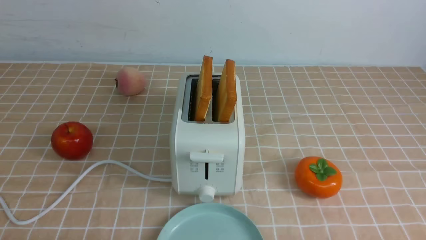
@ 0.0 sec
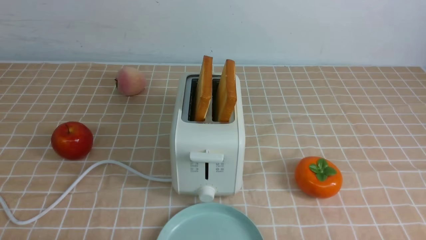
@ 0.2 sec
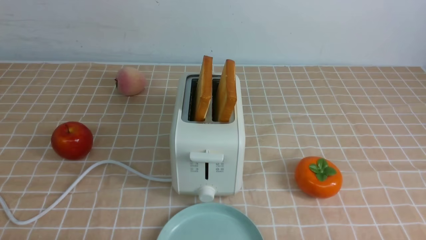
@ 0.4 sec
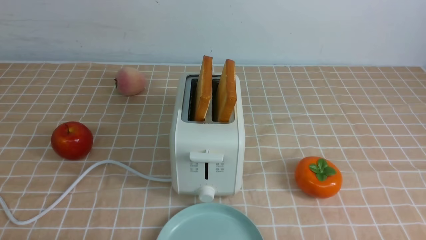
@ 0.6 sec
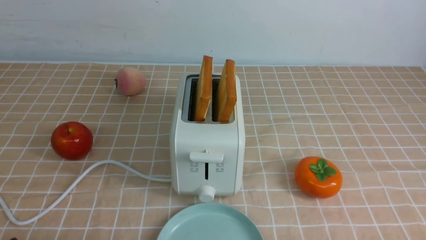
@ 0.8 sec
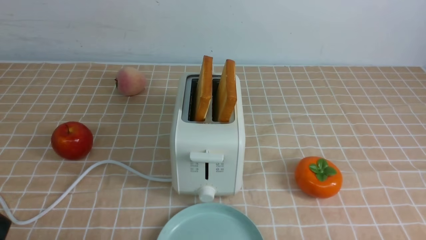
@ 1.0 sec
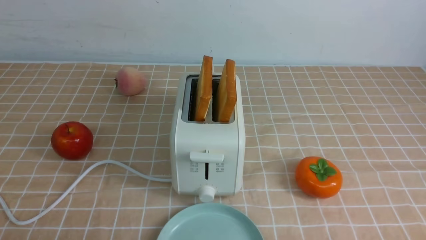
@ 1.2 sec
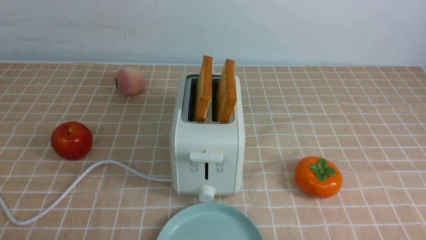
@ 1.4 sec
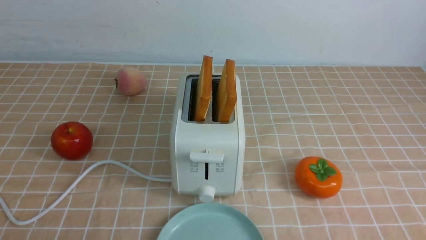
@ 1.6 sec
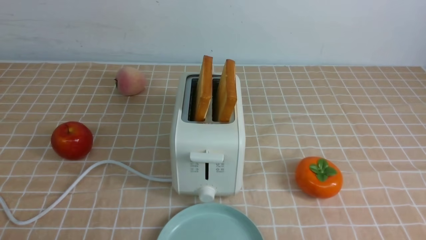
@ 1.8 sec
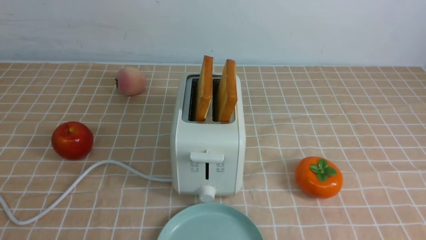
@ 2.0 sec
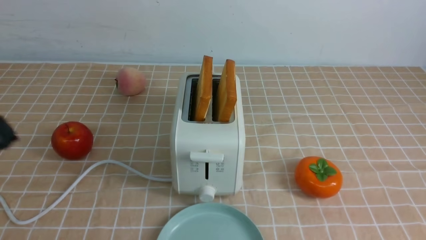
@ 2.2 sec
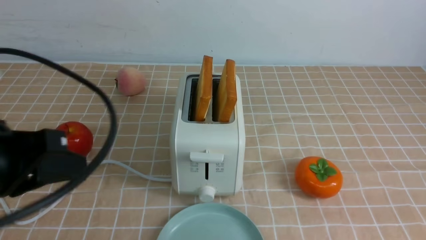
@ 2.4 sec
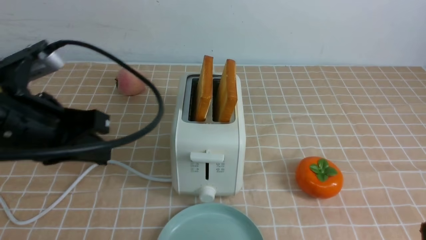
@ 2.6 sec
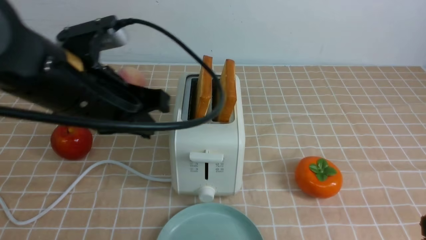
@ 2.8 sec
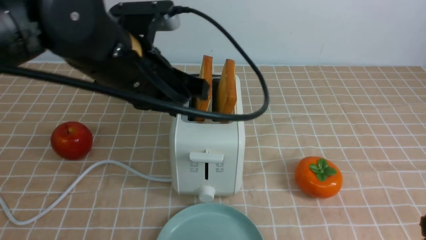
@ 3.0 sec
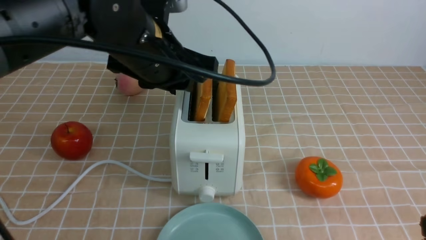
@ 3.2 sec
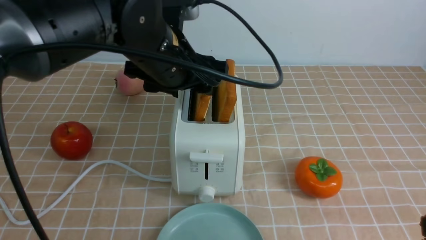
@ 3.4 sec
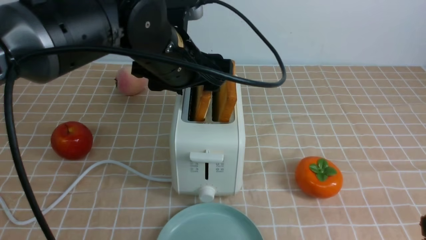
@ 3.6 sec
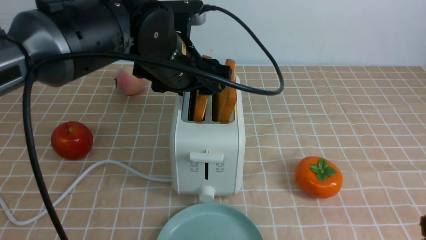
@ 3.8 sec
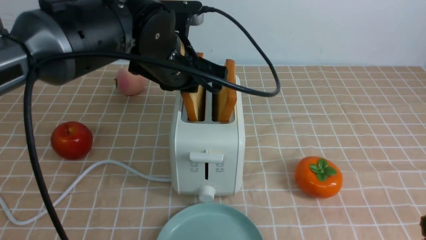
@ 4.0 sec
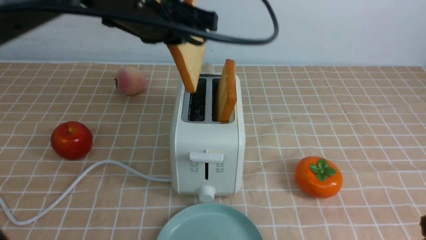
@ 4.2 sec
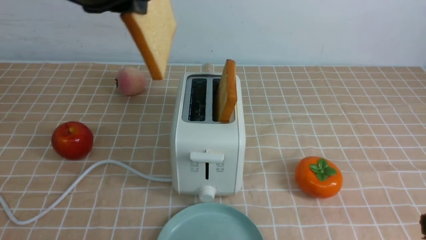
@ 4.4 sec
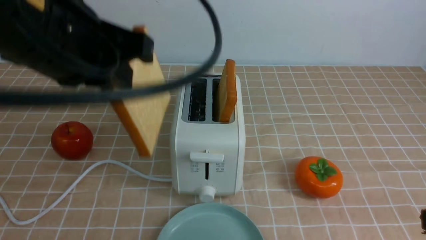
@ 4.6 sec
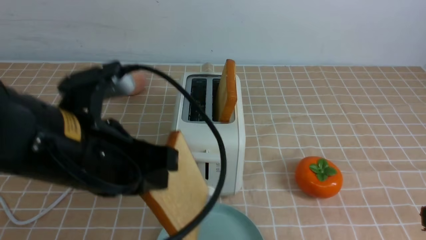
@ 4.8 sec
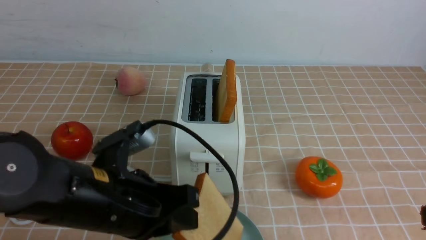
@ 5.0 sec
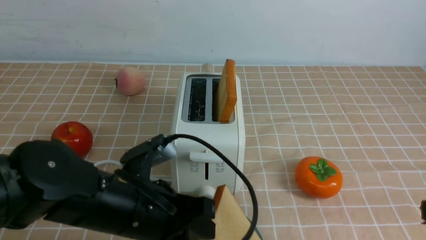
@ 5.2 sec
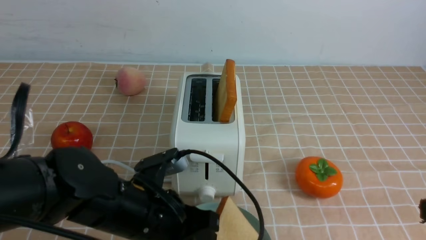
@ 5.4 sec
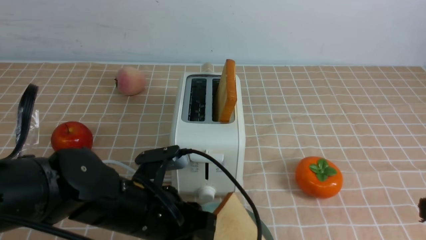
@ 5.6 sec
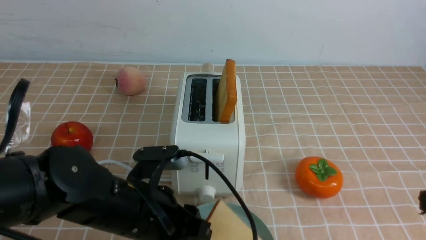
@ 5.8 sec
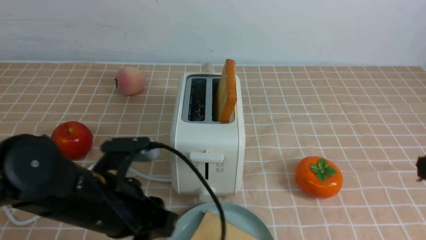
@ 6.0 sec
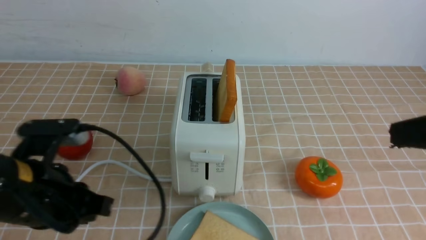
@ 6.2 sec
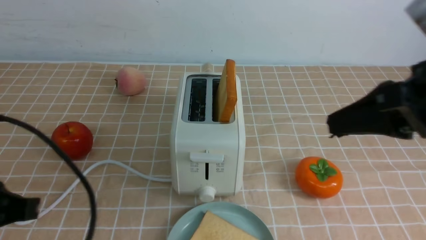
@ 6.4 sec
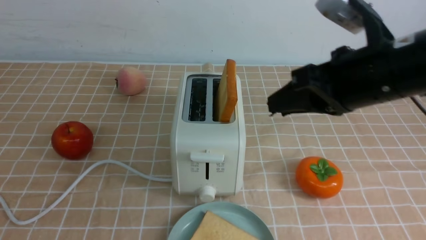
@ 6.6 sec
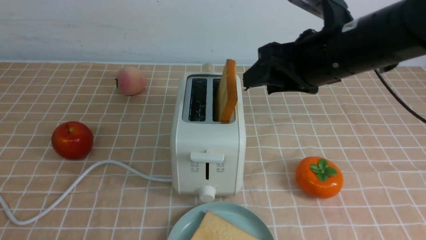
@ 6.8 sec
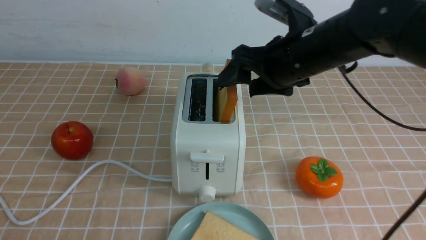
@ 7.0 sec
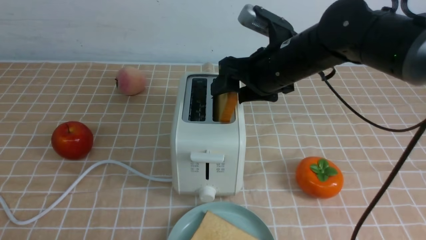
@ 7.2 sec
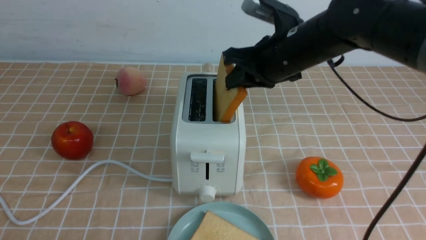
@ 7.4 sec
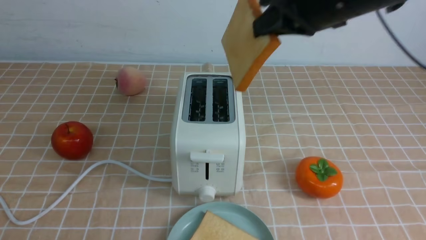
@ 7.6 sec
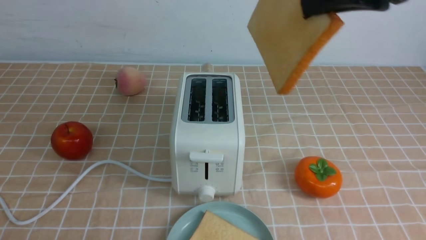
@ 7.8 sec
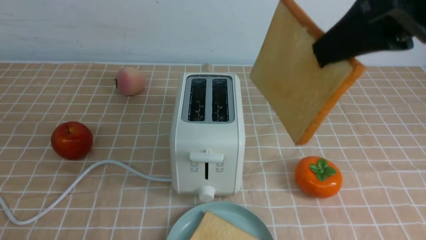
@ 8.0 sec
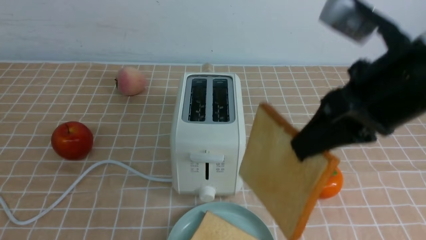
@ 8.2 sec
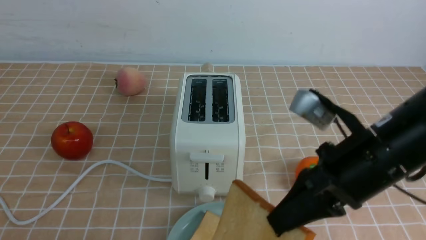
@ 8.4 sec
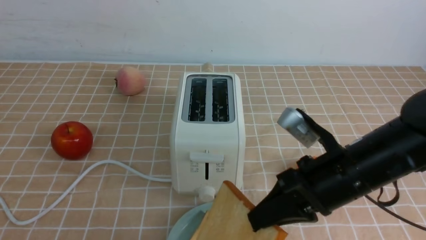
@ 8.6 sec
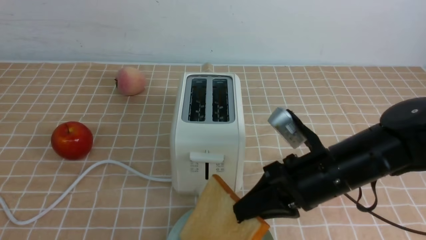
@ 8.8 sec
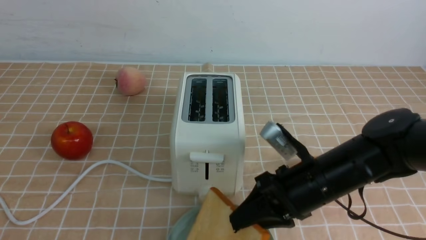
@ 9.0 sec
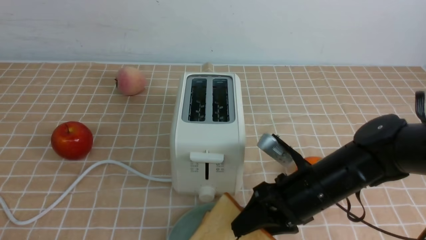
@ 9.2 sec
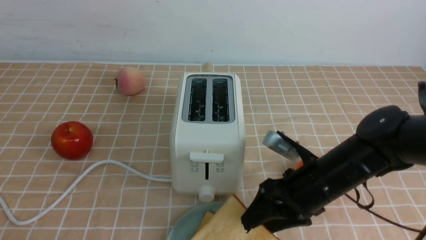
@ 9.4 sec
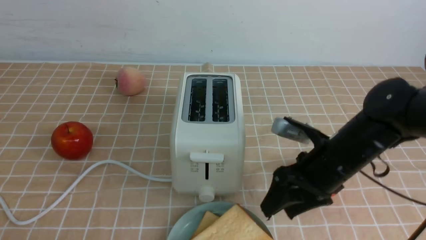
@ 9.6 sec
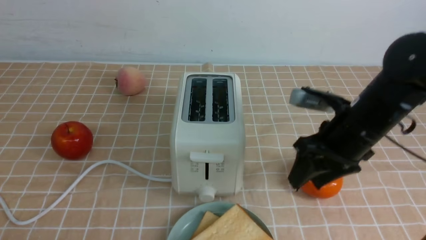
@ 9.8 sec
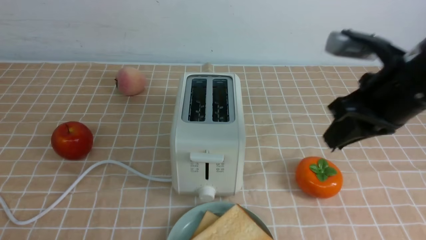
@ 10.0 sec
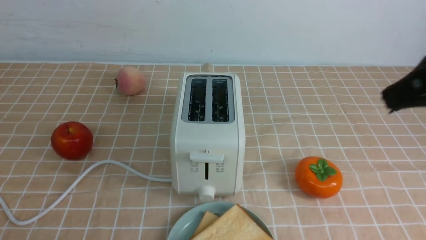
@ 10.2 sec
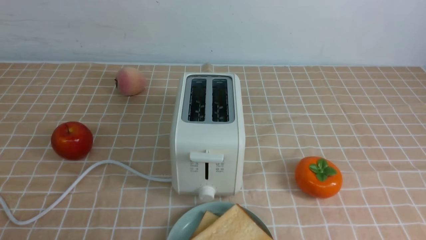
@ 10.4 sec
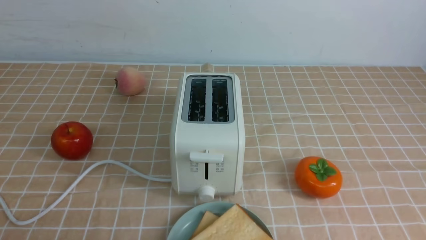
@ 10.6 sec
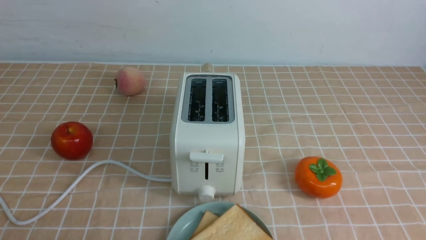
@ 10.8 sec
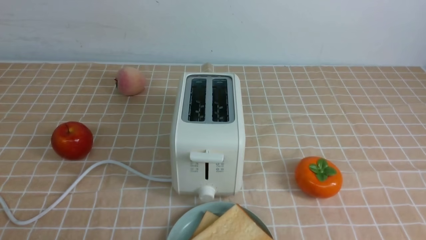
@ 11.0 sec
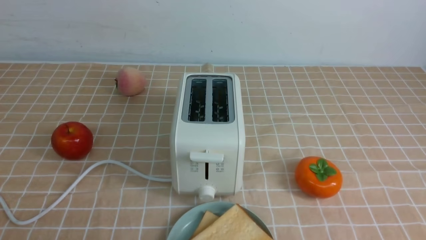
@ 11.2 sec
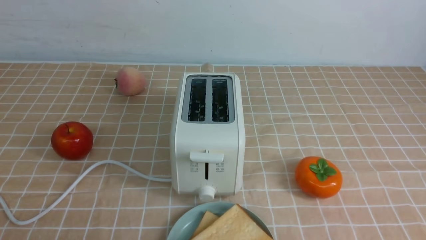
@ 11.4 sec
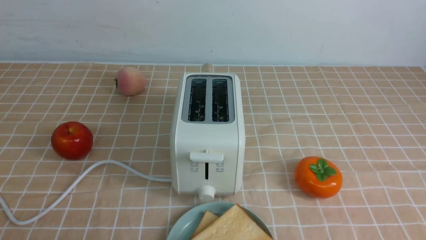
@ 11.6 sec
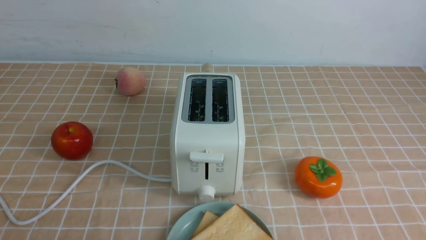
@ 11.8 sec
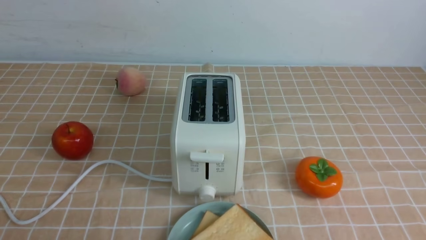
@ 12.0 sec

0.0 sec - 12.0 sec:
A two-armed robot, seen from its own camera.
Task of the whole recording: take toasted bread from bread machine on light coffee tablecloth place on plate.
Step, 0.0 sec - 4.0 sec: use the left arm to take out a slice of bread.
Step, 4.2 sec - 5.8 sec: use the left arm to put a slice of bread into the empty plate.
Step, 6.0 sec - 7.4 sec: use the right arm to take out a slice of bread.
Step, 7.6 sec - 9.4 sec: use the right arm to put a slice of bread into the plate.
1.6 sec - 3.0 sec: The left gripper moves forward, to the right and upward, some 30 cm. The right gripper shifts roughly 15 cm upward and forward, and closes its fingers.
3.0 sec - 4.4 sec: The left gripper shifts approximately 10 cm upward, and opens and closes again.
4.4 sec - 6.0 sec: The right gripper ends up approximately 5 cm from where it was; the left gripper heads downward, covering approximately 20 cm.
6.0 sec - 7.6 sec: The left gripper heads backward and to the left, covering approximately 25 cm, and closes its fingers. Meanwhile the right gripper goes roughly 20 cm forward and to the left, and opens, then closes once more.
7.6 sec - 9.0 sec: The right gripper is displaced downward by about 20 cm, and opens.
9.0 sec - 10.4 sec: The right gripper travels upward, backward and to the right by some 30 cm, and closes.

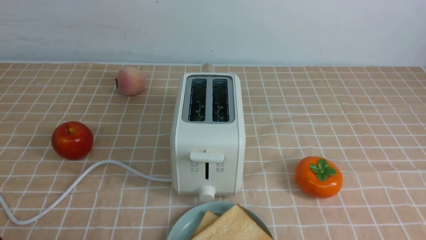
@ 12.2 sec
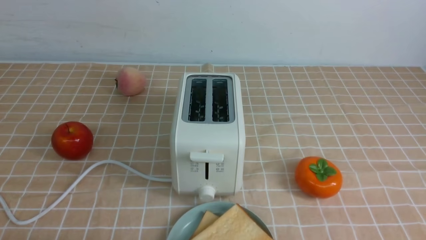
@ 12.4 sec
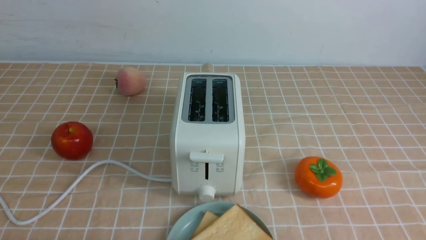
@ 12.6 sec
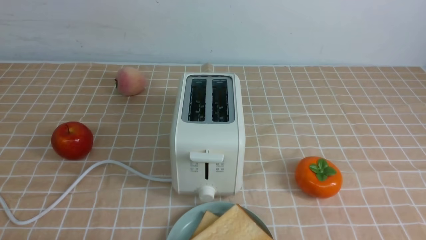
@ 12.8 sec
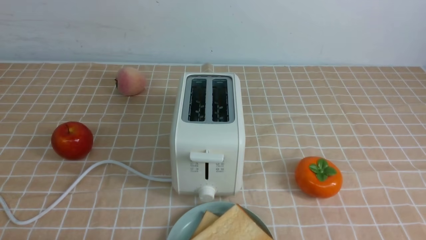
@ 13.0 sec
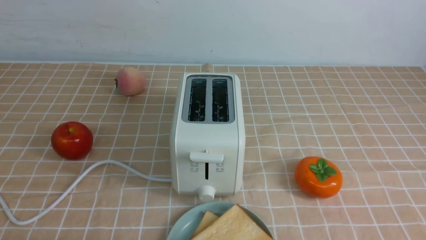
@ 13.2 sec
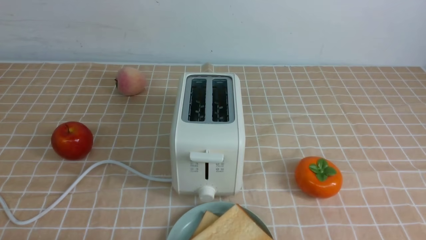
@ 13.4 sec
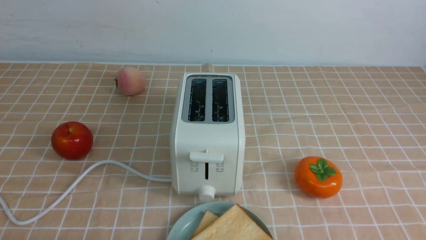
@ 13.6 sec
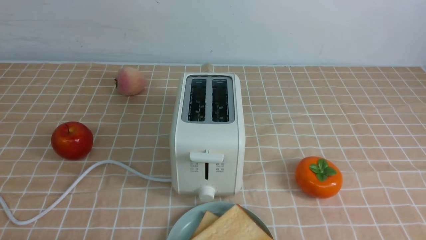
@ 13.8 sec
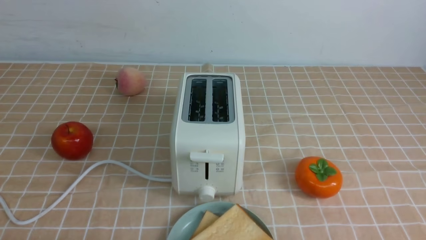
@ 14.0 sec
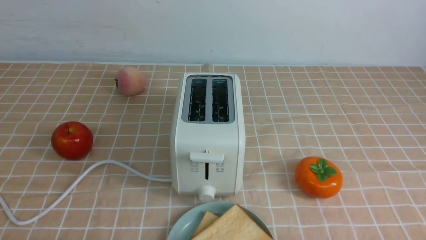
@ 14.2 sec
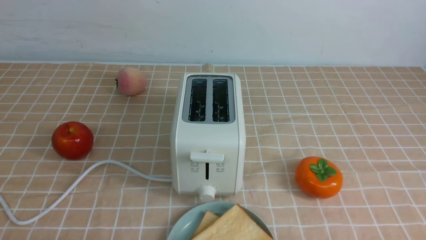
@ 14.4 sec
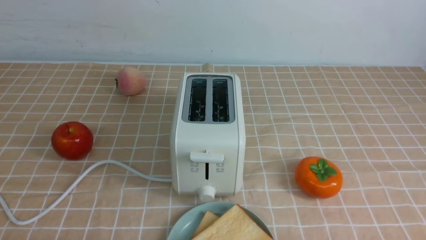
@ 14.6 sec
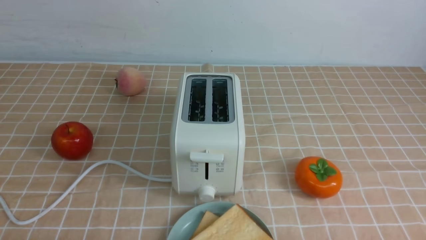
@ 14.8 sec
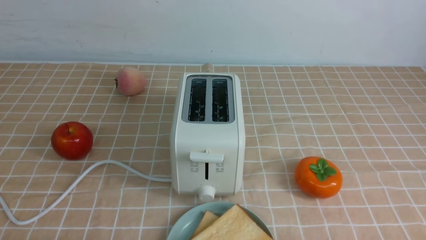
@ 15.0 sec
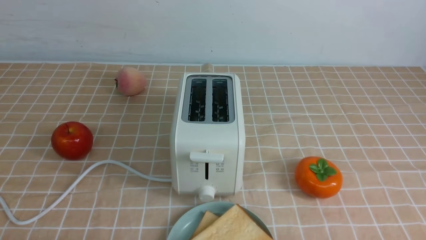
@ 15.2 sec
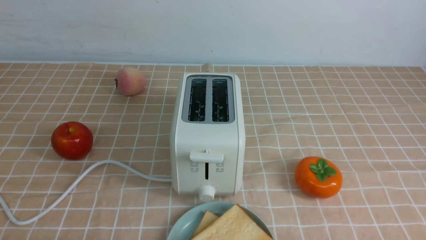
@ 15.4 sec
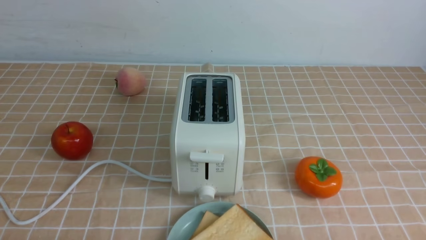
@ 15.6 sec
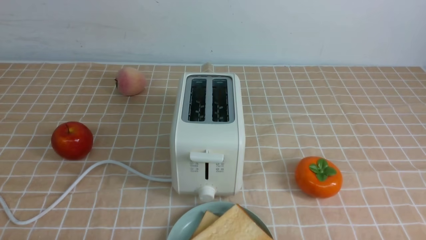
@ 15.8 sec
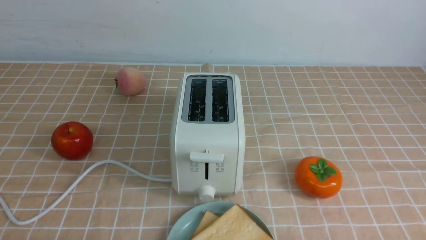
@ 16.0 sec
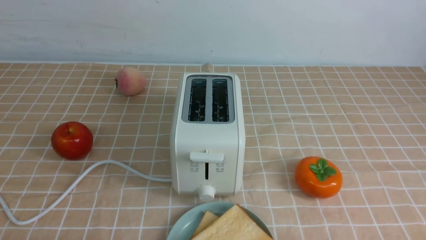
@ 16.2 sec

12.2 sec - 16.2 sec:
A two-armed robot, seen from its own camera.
Task of the whole recording: take toasted bread from bread machine on light coffee tablecloth place on plate.
14.8 sec - 16.2 sec: Both grippers stay put.
